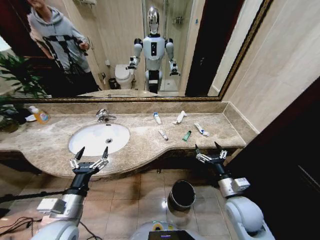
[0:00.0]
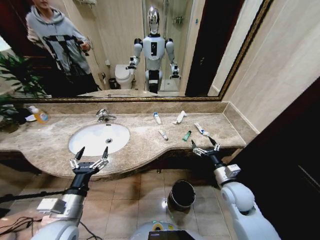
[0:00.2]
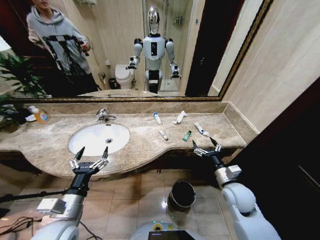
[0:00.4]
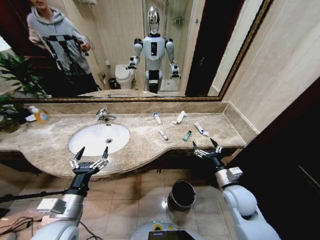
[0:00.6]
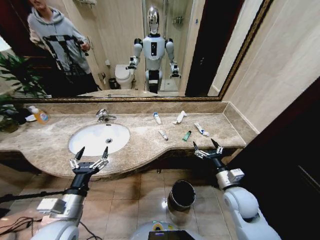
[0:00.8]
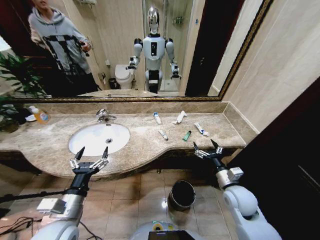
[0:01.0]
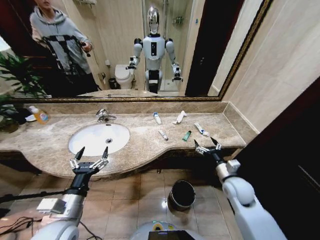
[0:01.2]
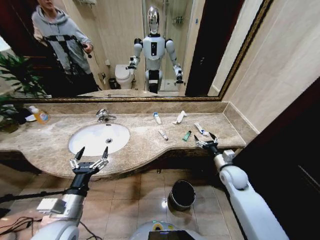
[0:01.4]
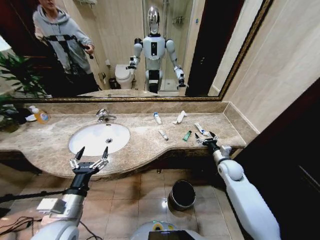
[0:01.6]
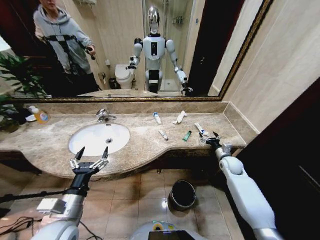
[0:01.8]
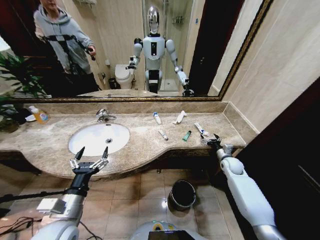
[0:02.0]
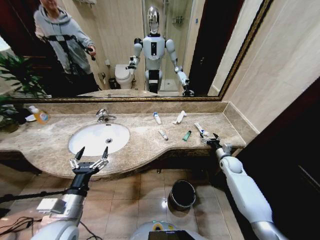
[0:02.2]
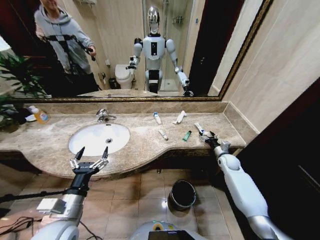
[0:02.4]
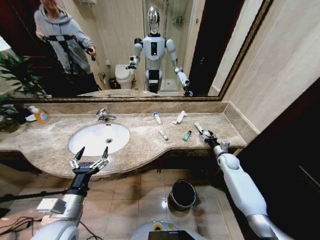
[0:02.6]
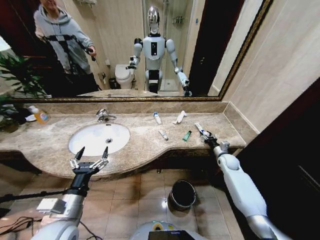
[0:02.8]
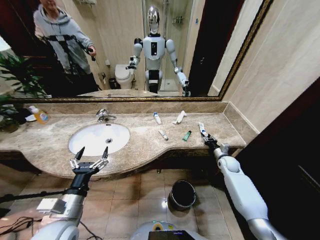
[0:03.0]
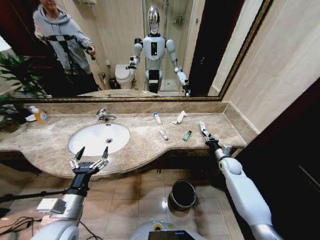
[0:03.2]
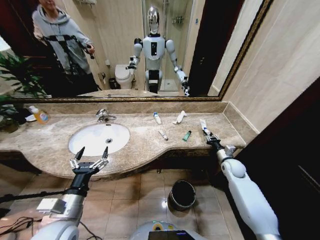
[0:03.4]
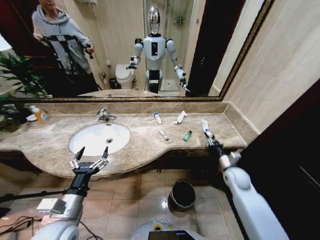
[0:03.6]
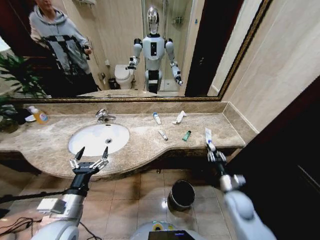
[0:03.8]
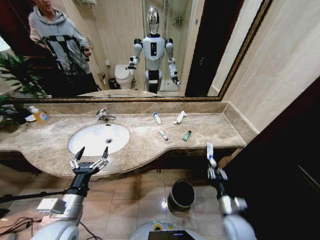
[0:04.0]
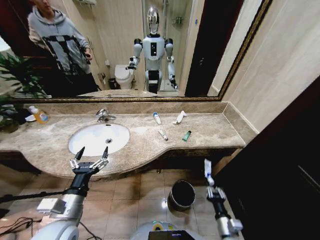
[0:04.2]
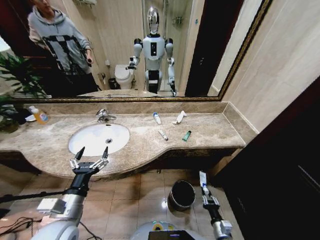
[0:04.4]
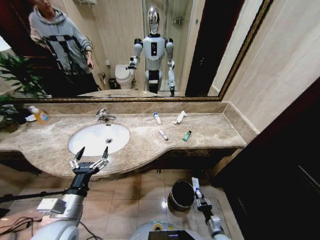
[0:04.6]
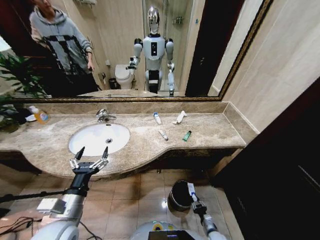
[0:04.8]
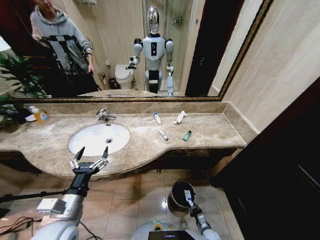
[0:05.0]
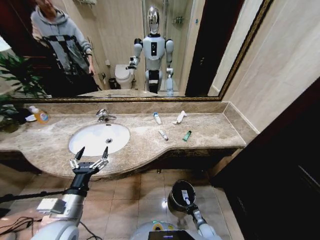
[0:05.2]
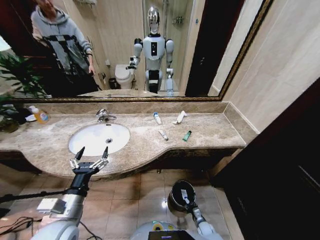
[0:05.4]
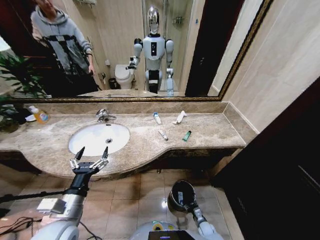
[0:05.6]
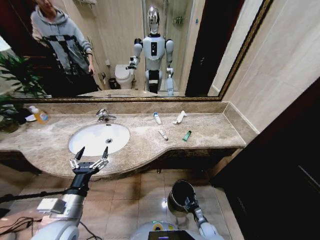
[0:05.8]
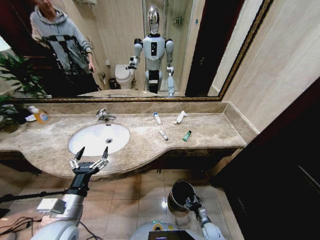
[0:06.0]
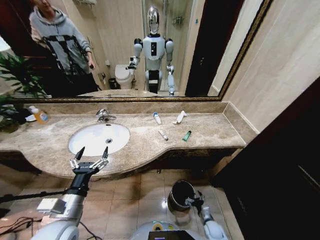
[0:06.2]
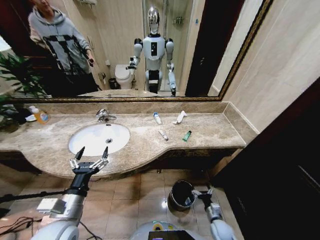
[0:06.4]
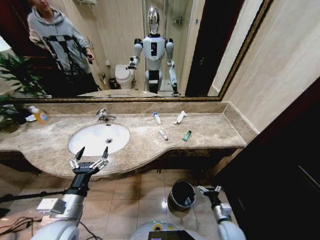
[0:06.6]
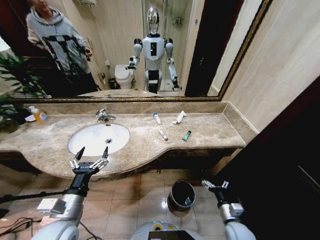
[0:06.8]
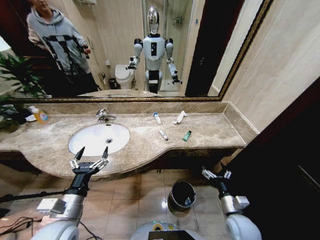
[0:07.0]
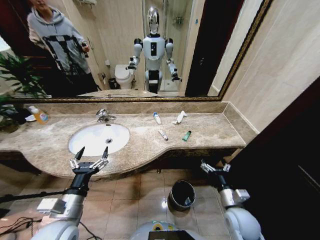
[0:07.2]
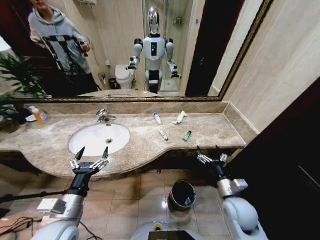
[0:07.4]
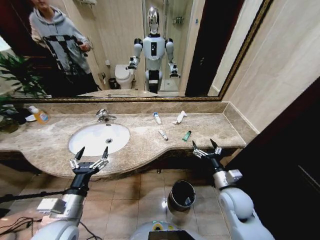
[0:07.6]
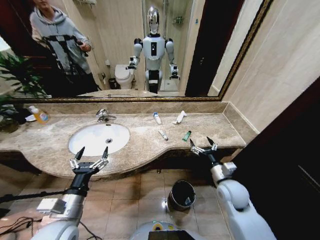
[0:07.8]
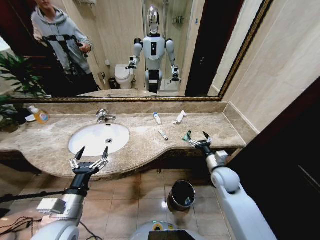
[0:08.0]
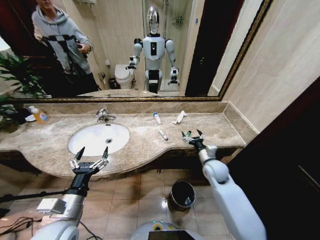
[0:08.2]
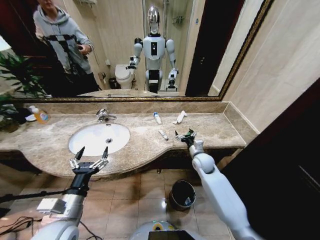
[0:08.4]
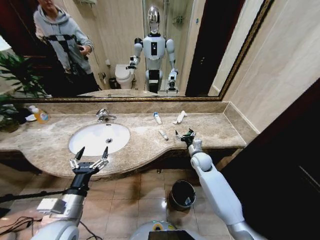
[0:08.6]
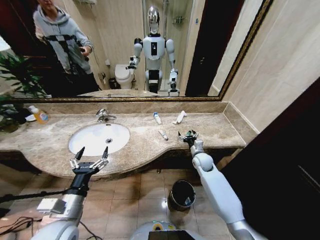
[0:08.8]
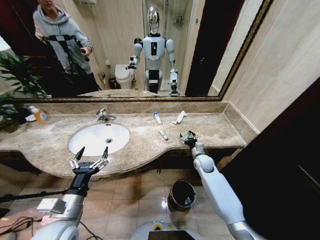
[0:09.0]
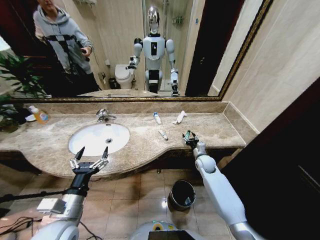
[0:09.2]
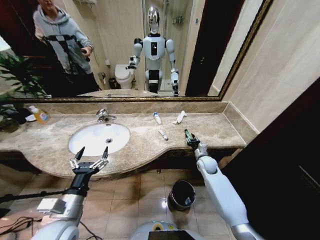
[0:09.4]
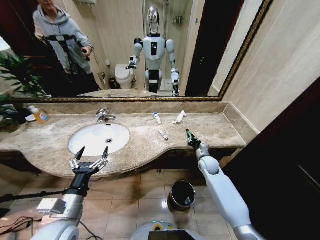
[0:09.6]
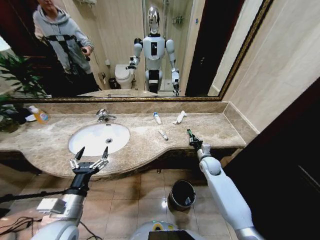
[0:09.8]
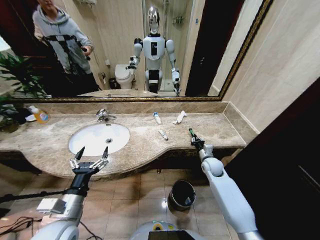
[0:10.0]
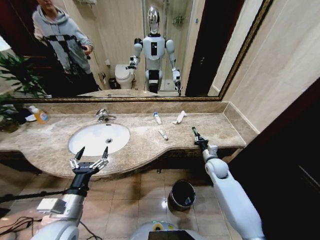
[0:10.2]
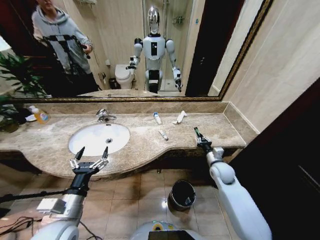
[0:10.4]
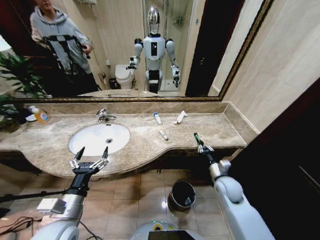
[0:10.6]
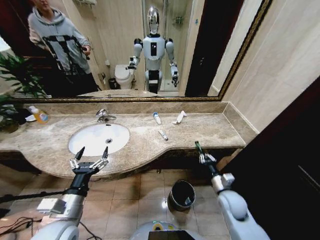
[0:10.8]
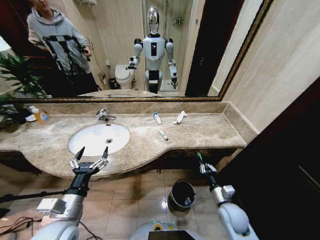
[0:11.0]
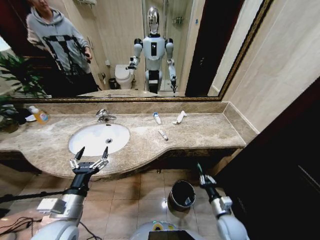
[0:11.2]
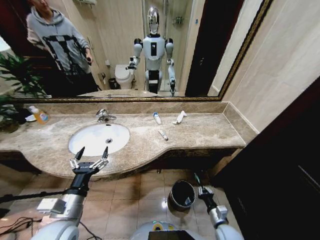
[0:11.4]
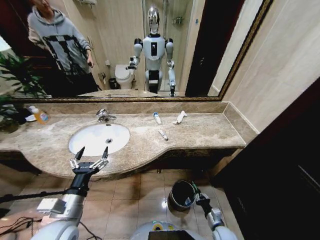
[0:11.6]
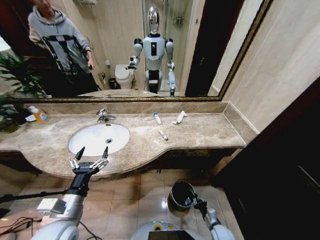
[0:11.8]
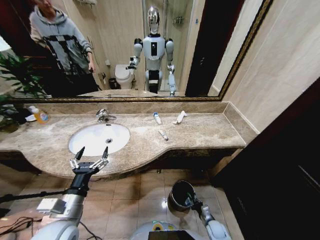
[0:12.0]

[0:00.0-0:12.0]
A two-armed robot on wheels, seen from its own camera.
Task of the whole recording: Pick up the trash from the sink and place it in the trash bin.
0:01.6 to 0:03.0: The right gripper heads forward and downward, covering some 5 cm, and closes up.
0:03.0 to 0:04.4: The right gripper travels backward by about 35 cm.
0:04.4 to 0:06.0: The right gripper goes some 15 cm downward and forward, and opens up.
0:06.0 to 0:07.6: The right gripper is displaced upward by roughly 35 cm.
0:07.6 to 0:09.0: The right gripper shifts approximately 20 cm forward.
0:09.0 to 0:10.4: The right gripper is displaced backward and to the right by roughly 10 cm, and closes its fingers.
0:10.4 to 0:12.0: The right gripper is displaced downward and backward by some 35 cm.

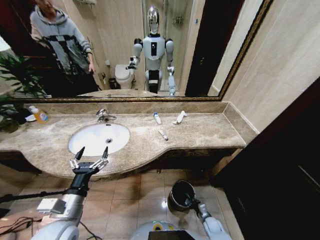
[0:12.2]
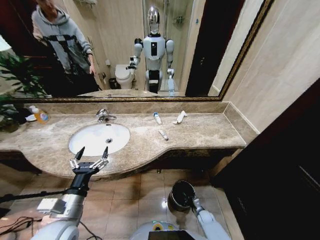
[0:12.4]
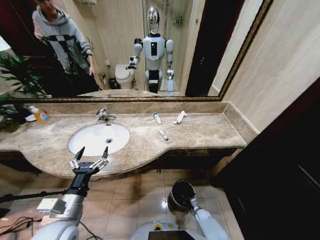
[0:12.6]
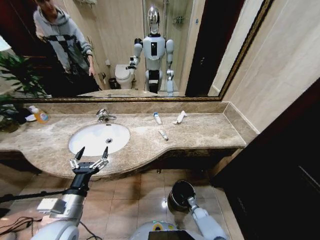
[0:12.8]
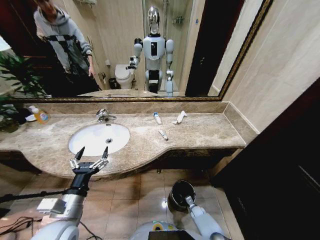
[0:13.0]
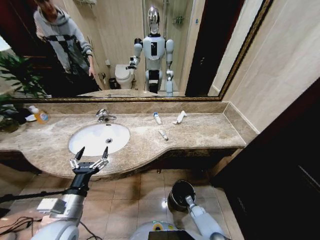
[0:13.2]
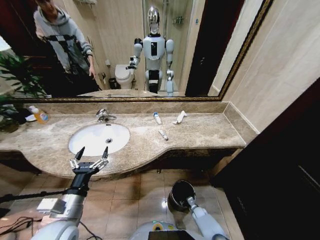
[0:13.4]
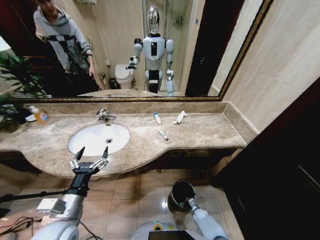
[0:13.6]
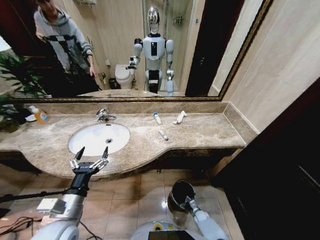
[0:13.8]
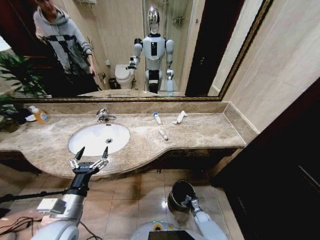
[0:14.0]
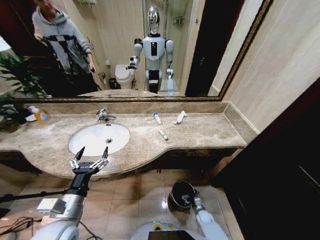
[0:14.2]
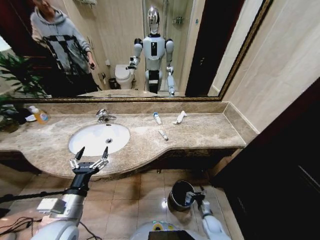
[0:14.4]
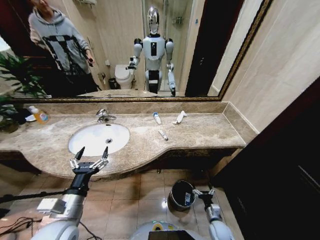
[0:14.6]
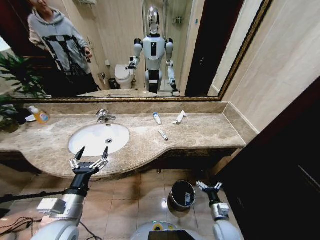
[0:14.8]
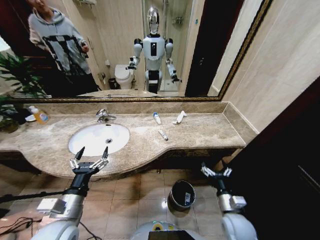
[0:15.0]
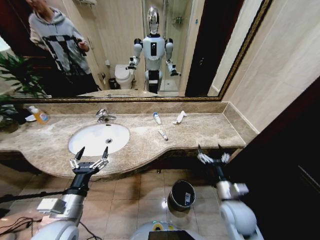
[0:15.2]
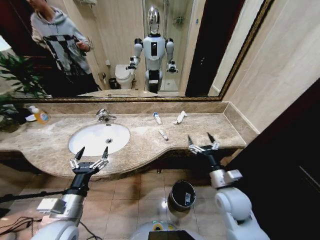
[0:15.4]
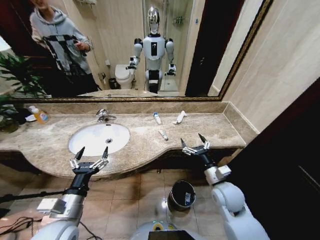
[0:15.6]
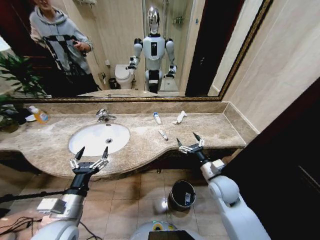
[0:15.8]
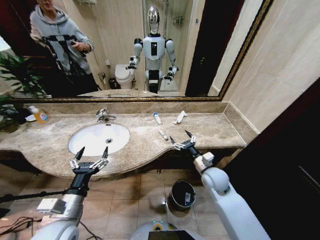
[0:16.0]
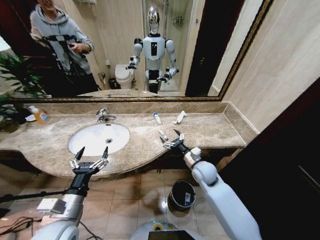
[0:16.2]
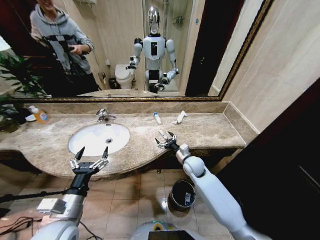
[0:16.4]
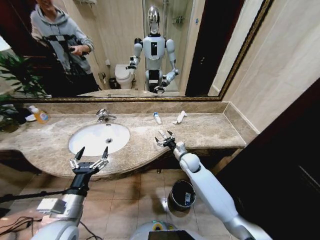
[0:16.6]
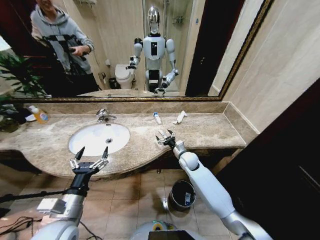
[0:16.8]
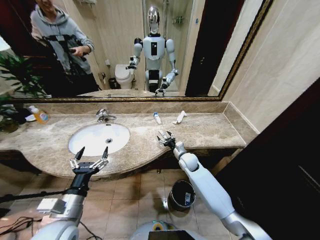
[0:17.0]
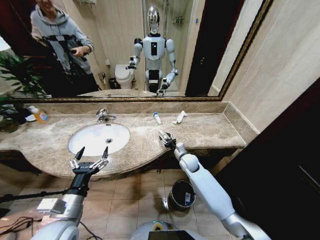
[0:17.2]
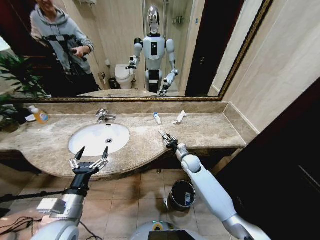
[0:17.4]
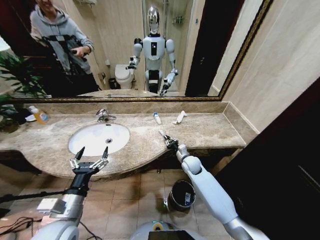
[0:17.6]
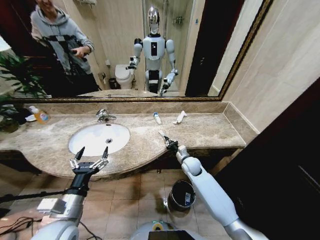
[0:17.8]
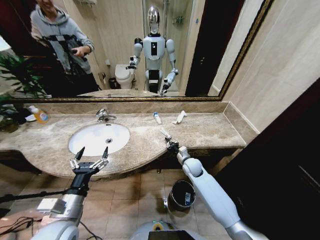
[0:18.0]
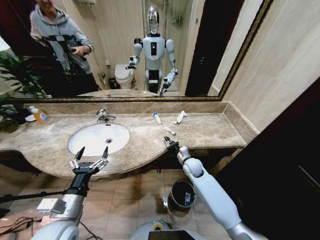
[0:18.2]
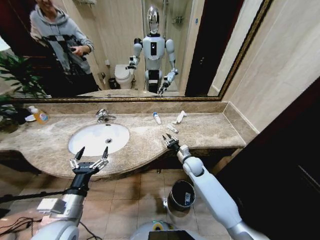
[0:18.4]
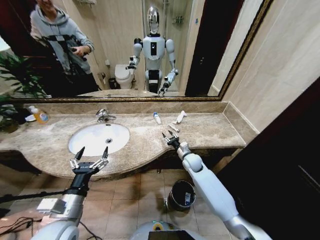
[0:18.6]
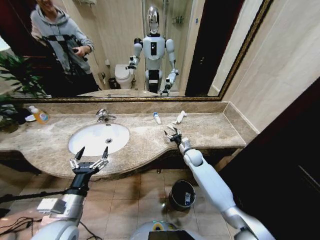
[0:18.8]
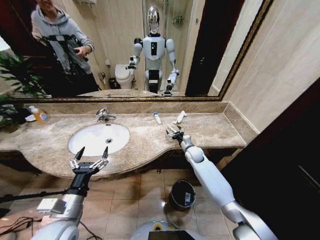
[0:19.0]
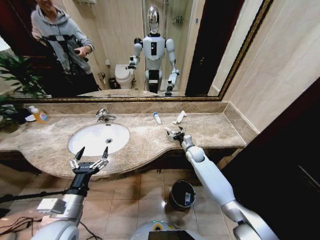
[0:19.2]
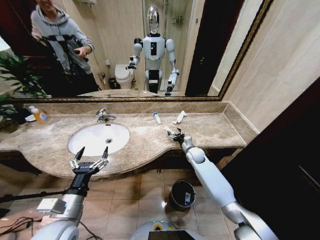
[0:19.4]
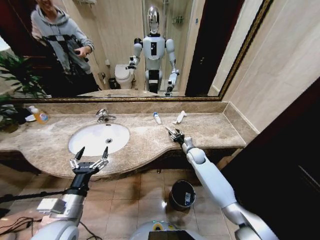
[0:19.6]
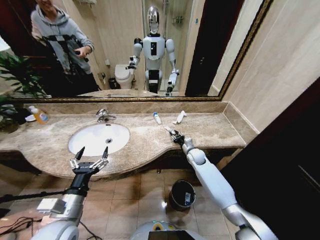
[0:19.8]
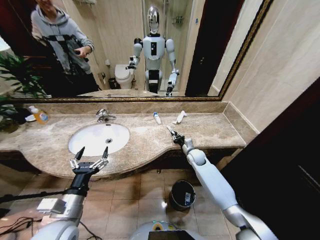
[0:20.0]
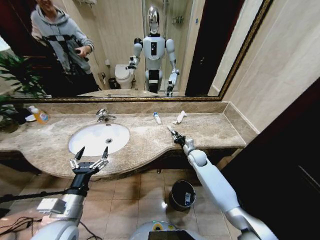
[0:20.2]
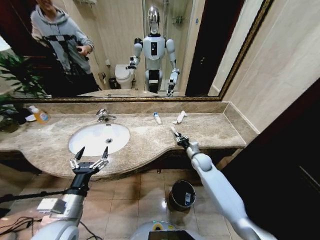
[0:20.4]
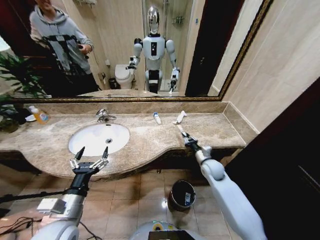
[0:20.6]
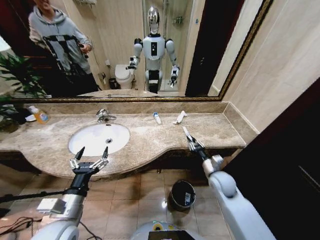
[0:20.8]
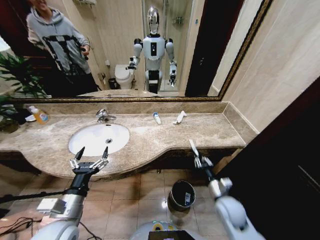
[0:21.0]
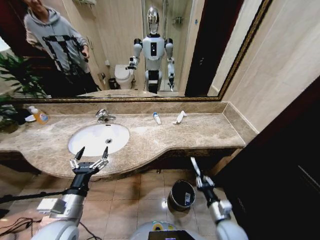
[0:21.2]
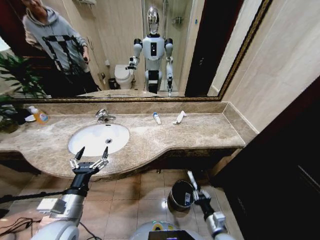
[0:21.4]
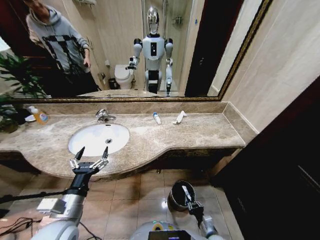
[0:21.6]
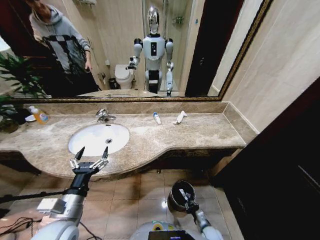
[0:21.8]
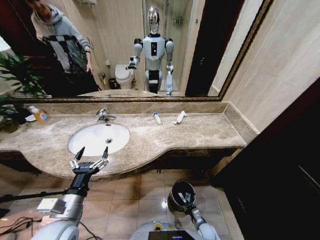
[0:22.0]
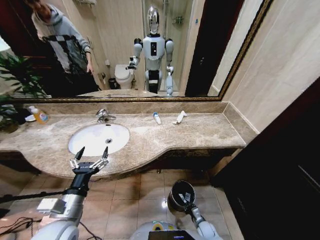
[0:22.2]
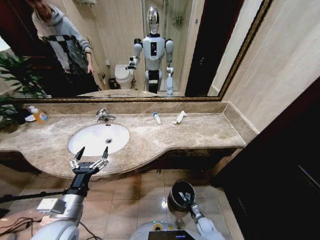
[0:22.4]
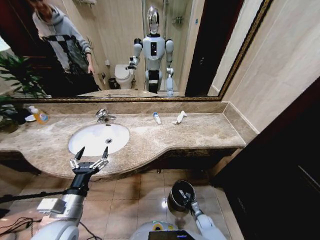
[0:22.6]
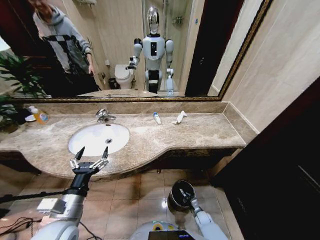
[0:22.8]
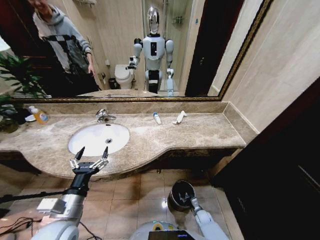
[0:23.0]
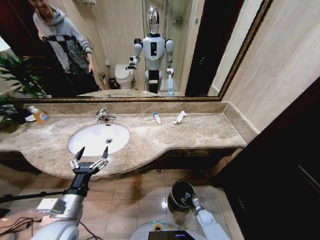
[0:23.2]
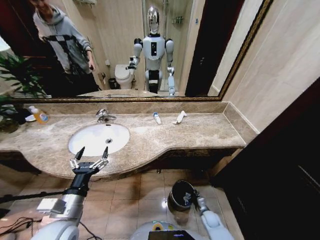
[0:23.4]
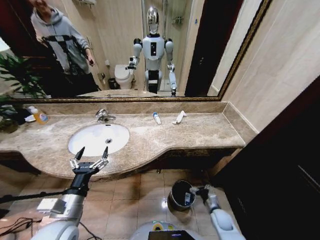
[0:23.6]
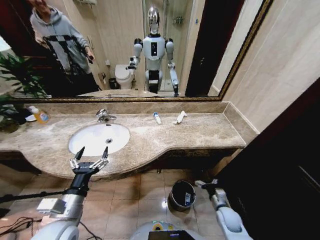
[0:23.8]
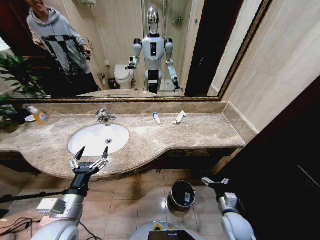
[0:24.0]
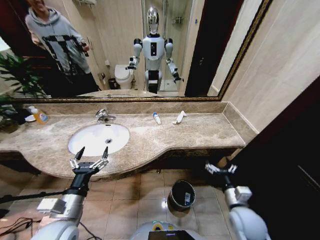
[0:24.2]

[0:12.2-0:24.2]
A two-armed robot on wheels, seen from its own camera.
Task of the whole recording: Pick up the trash from the sink and place it in the trash bin.
0:12.2 to 0:13.8: The right gripper shifts about 5 cm downward, and opens its fingers.
0:13.8 to 0:15.2: The right gripper travels upward by roughly 40 cm.
0:15.2 to 0:16.6: The right gripper moves forward and to the left, some 25 cm.
0:16.6 to 0:18.2: The right gripper closes up.
0:18.2 to 0:19.8: The right gripper travels forward by some 5 cm, and opens its fingers.
0:19.8 to 0:21.2: The right gripper is displaced backward by approximately 35 cm.
0:21.2 to 0:22.6: The right gripper is displaced downward by about 25 cm.
0:22.6 to 0:24.2: The right gripper heads upward, covering about 35 cm, and opens.
